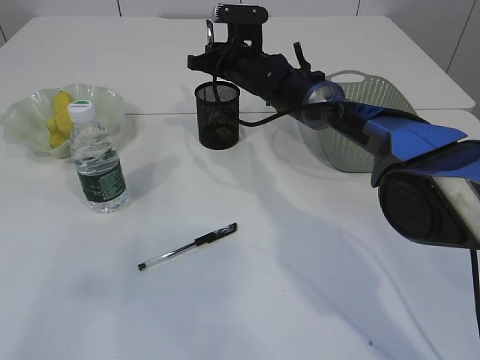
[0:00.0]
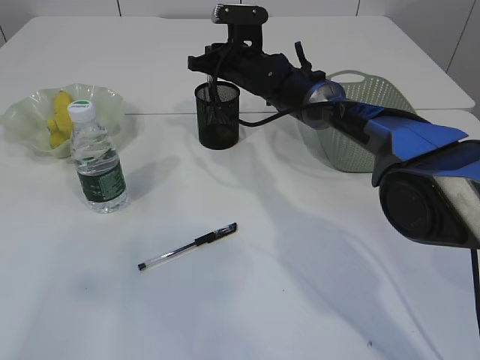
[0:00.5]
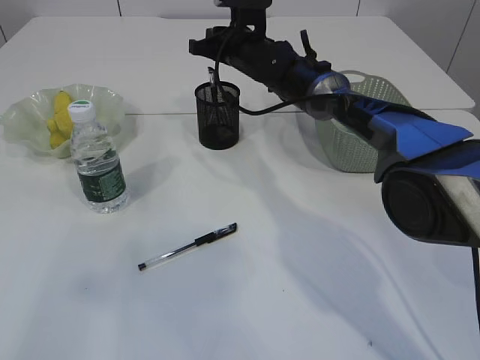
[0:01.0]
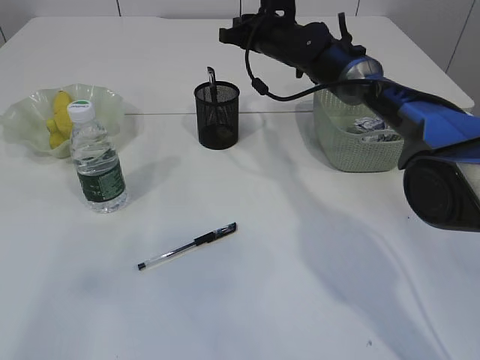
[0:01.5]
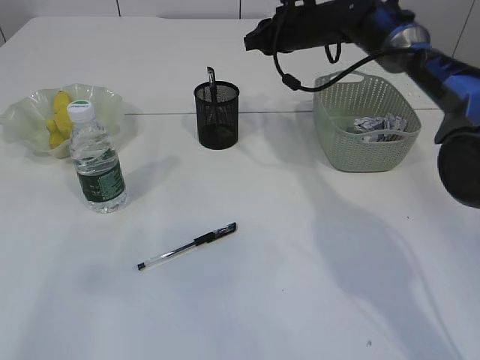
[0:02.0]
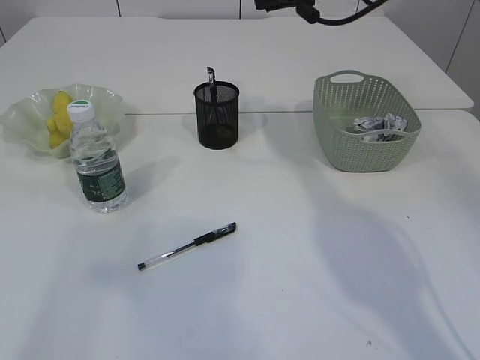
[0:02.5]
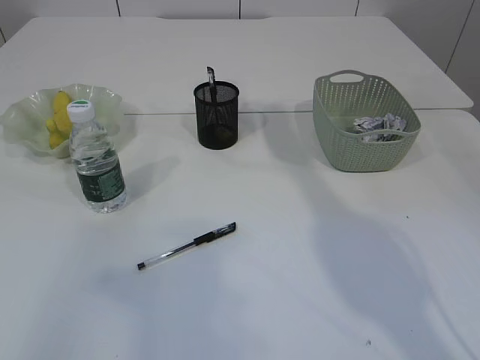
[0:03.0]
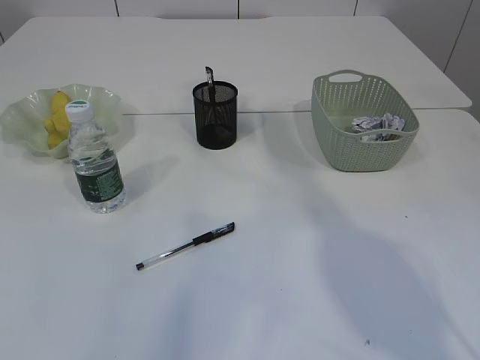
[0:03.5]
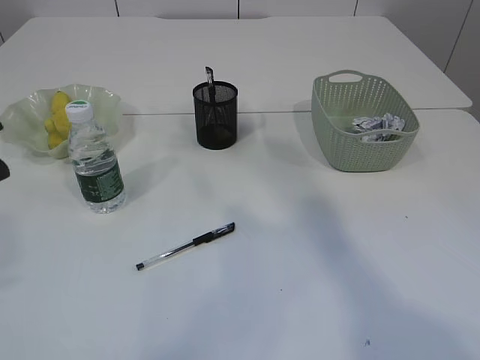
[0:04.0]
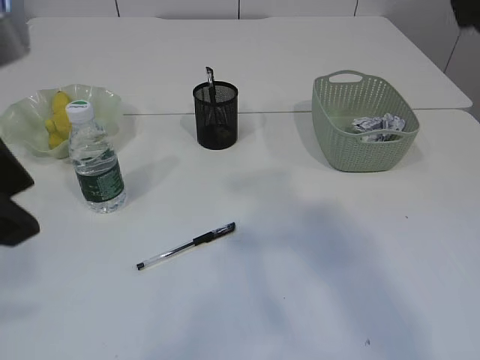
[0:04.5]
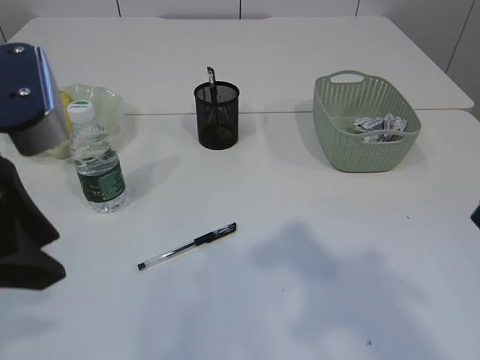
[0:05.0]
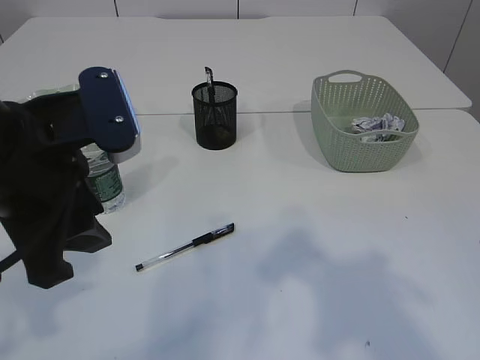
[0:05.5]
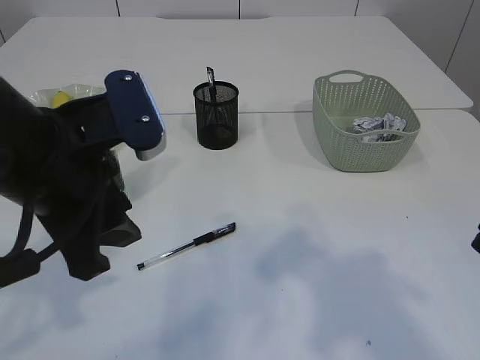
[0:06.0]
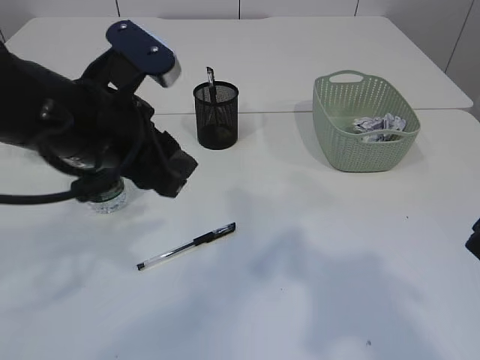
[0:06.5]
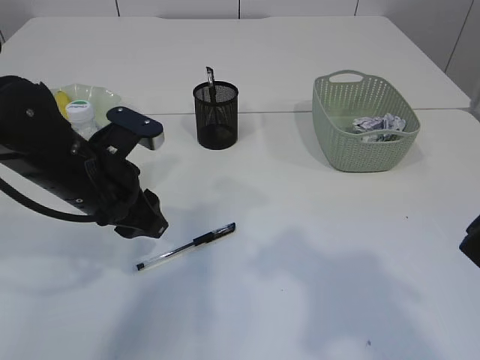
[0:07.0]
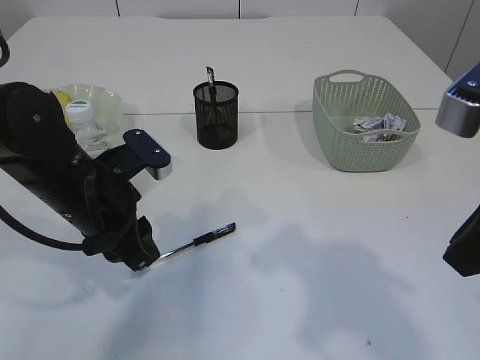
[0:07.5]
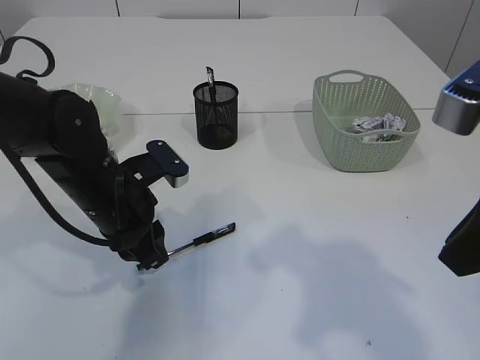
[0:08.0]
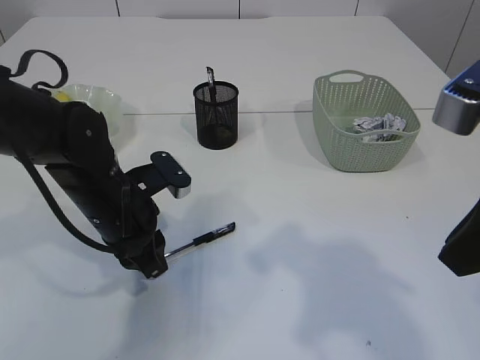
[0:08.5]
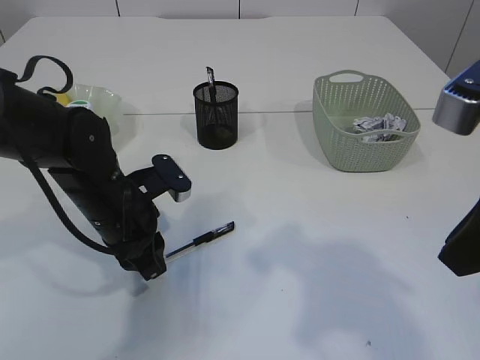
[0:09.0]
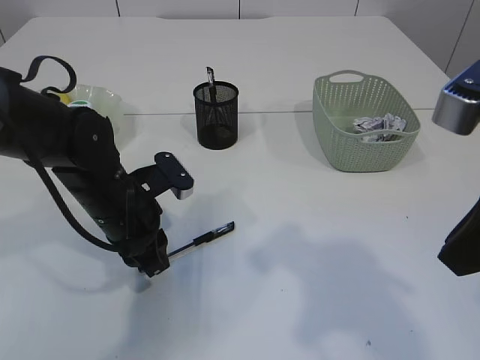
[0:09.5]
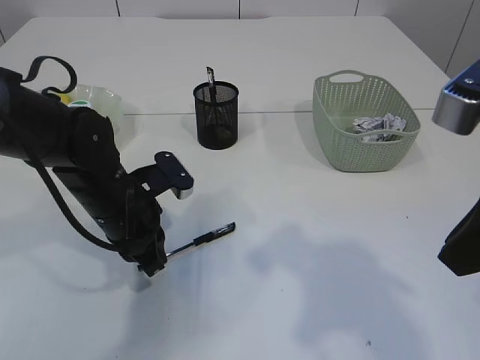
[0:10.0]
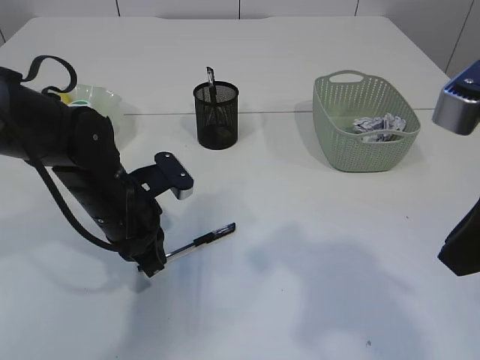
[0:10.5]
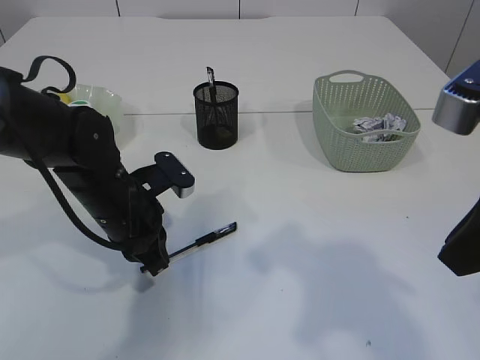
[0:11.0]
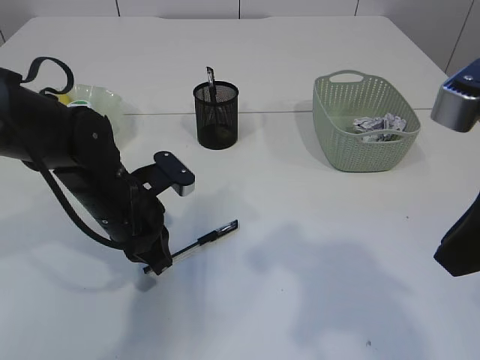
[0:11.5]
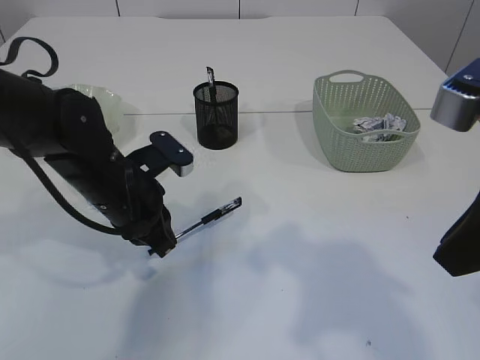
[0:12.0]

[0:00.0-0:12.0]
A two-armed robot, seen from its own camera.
0.0 to 2.0 s: The right gripper shifts some 10 cm to the right and upward.
2.0 to 4.0 s: The left gripper moves to the right and forward, approximately 15 cm, while the right gripper goes about 40 cm upward and backward.
4.0 to 6.0 s: The right gripper shifts about 25 cm downward and backward, while the left gripper is displaced downward and forward by approximately 15 cm.
6.0 to 8.0 s: The left gripper is displaced downward and forward by some 15 cm.
8.0 to 12.0 s: The grippers stay close to where they were, moving slightly.

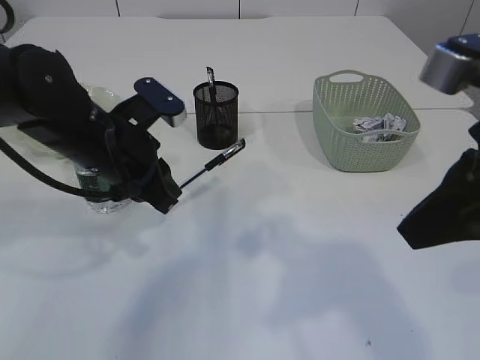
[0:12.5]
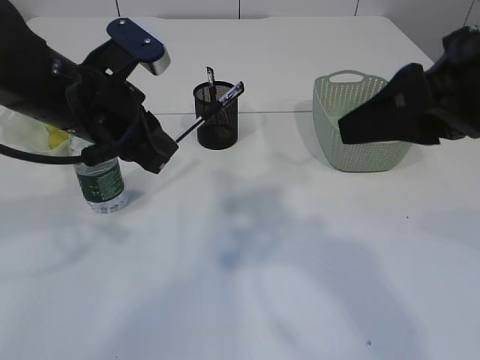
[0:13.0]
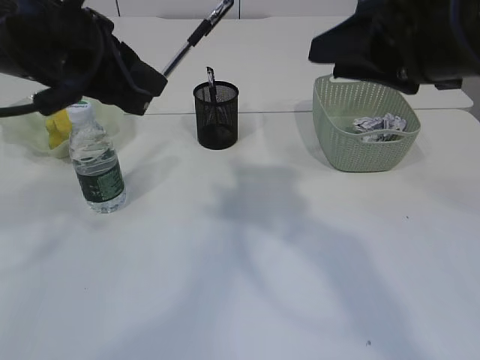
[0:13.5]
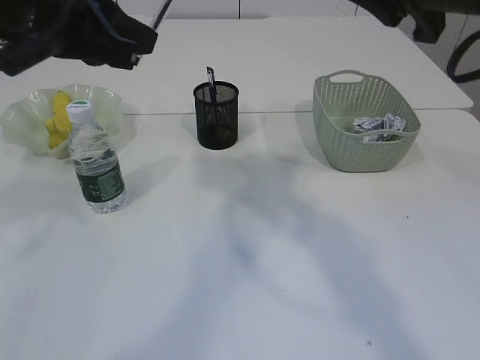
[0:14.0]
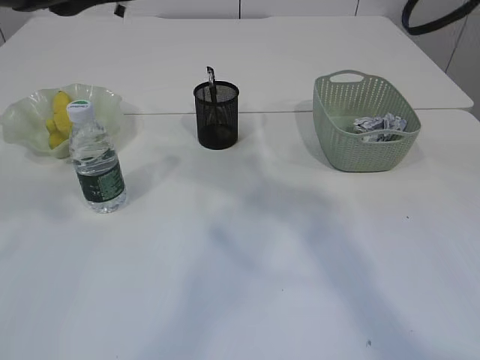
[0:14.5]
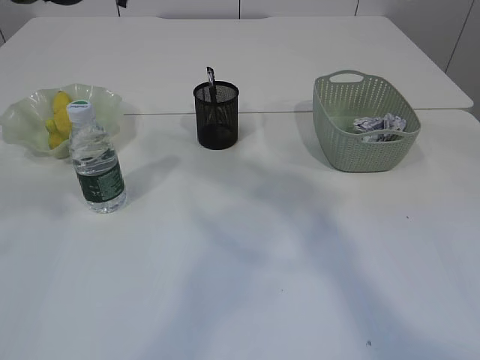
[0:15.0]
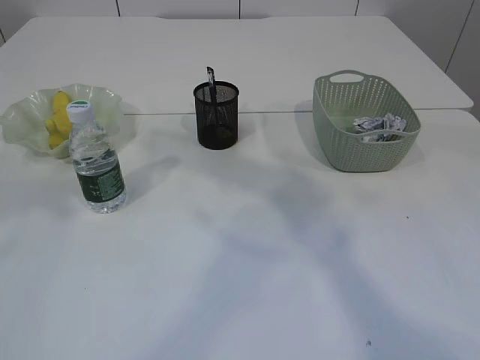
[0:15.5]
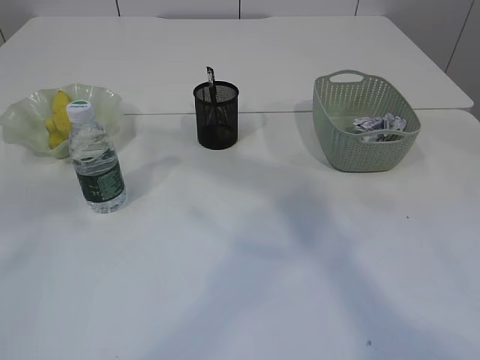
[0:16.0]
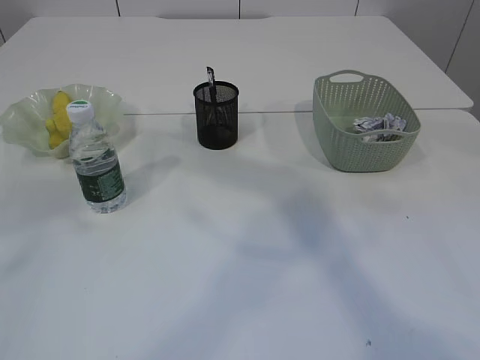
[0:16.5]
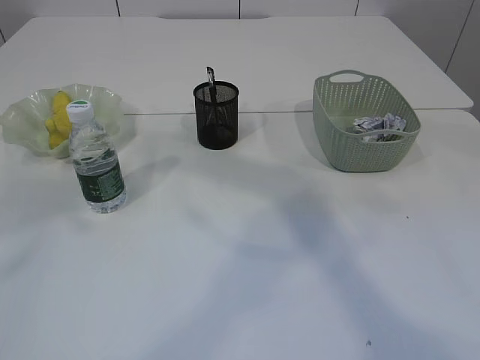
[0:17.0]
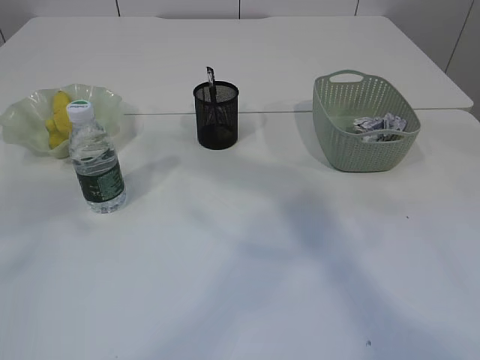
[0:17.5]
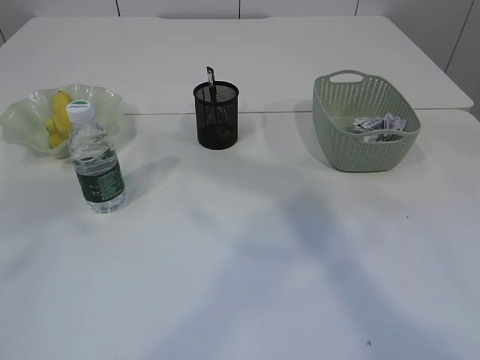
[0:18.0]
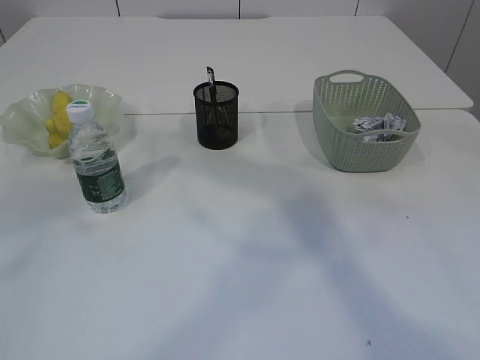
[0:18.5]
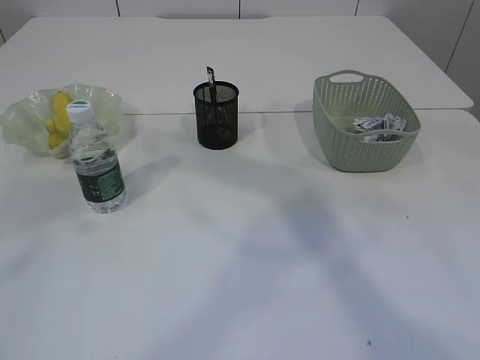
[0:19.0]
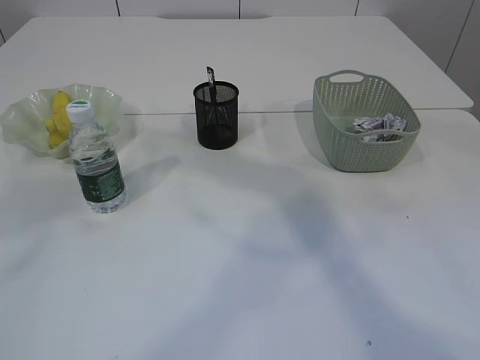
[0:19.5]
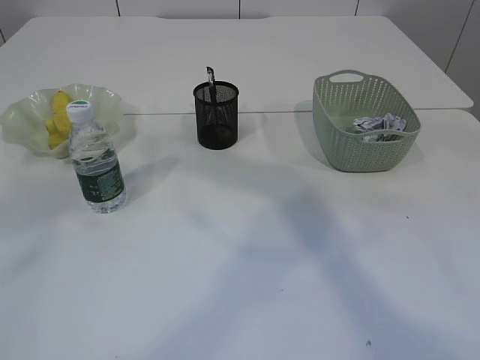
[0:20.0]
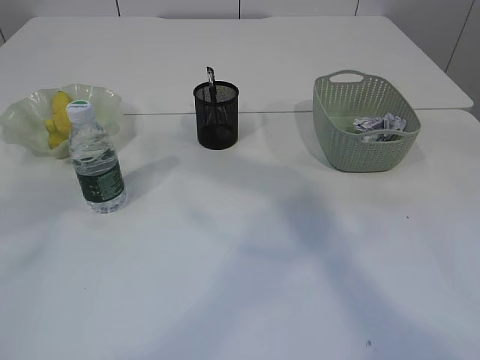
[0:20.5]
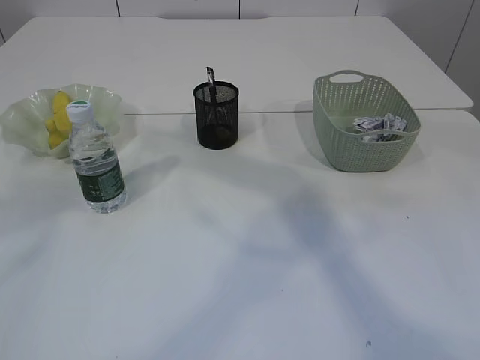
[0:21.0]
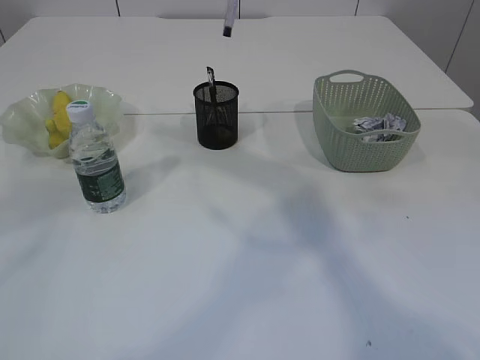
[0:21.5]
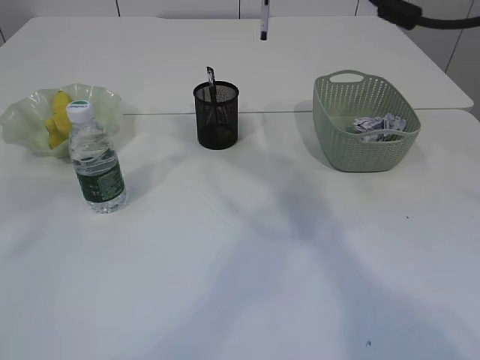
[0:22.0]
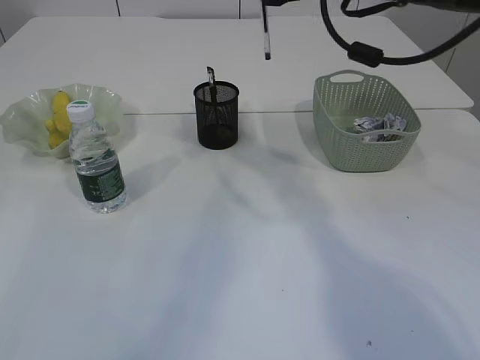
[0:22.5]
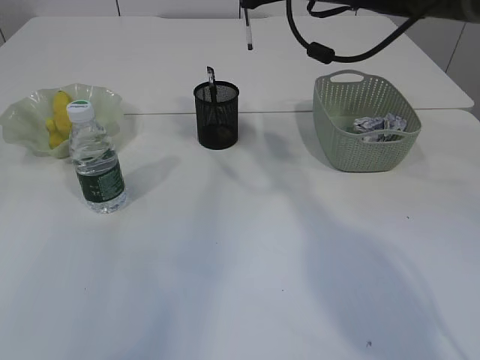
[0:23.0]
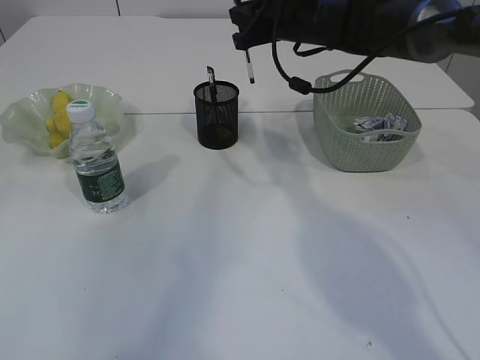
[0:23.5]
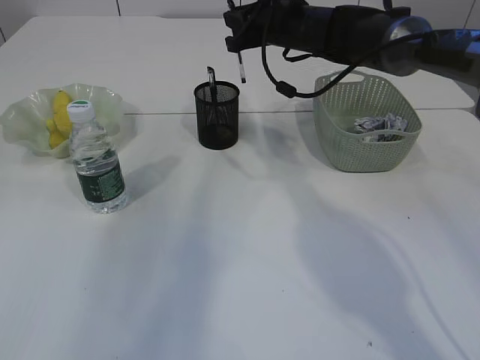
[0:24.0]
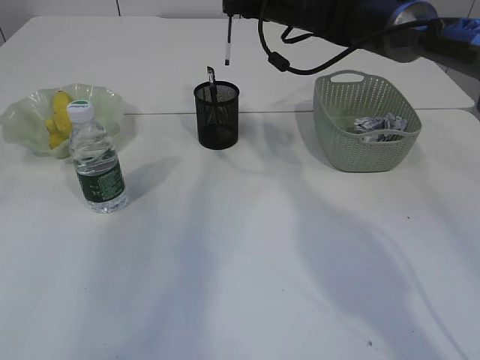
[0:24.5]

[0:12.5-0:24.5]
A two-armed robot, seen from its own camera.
Step, 12.5 to 21.5 s: transfer the pen to the right arm.
12.5 to 14.5 s: The left gripper heads upward, covering approximately 20 cm. Meanwhile the right gripper shifts roughly 15 cm forward and upward.
14.5 to 16.5 s: The left gripper shifts by some 5 cm. The right gripper goes some 5 cm upward.
18.5 to 20.5 s: Neither gripper changes place.
20.5 to 22.5 s: The right gripper goes approximately 15 cm forward and downward. The left gripper travels to the left and forward by about 10 cm.
22.5 to 24.5 s: The right gripper travels forward and downward by roughly 15 cm.

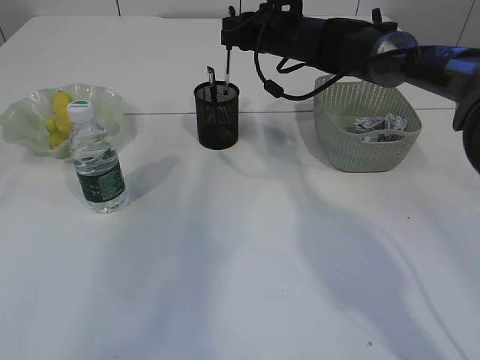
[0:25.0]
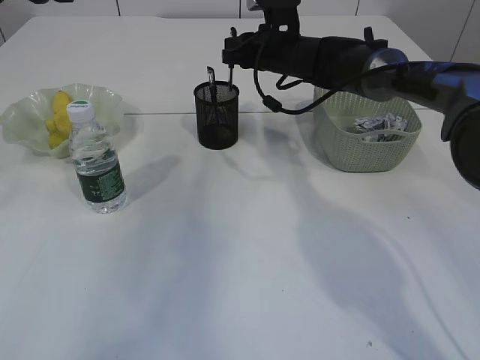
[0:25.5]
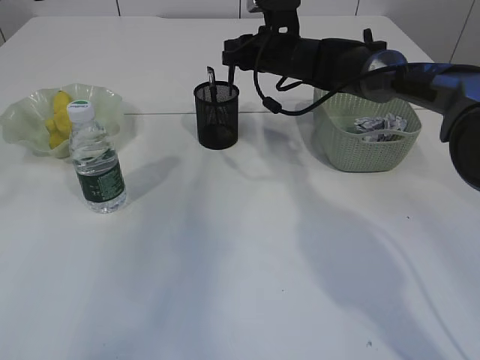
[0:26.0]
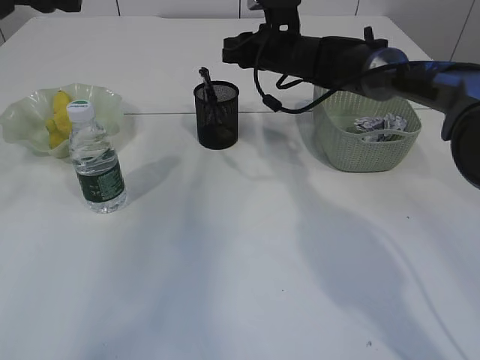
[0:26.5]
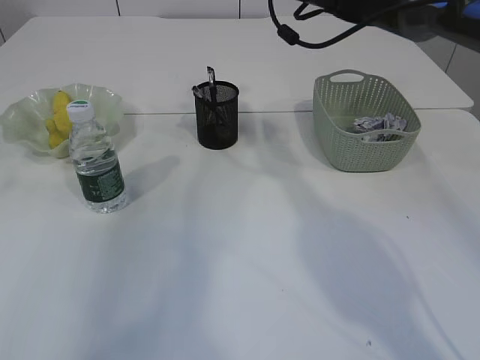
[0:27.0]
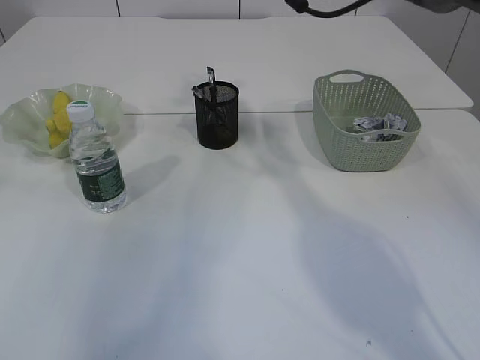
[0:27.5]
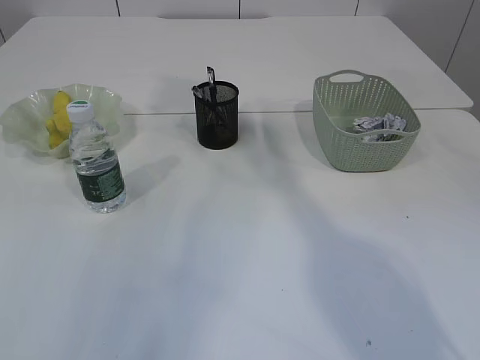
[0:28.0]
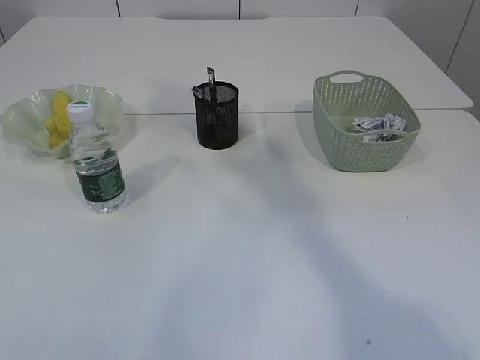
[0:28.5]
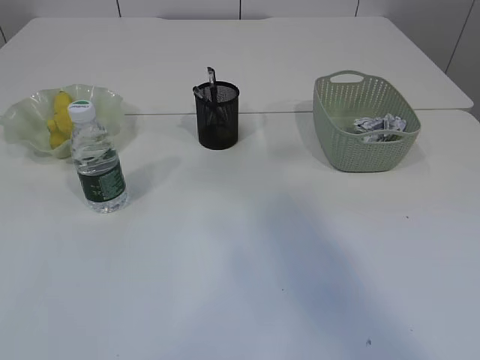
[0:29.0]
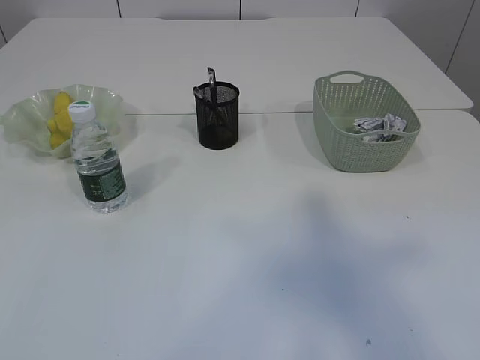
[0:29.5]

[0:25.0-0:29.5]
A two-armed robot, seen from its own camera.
25.0 to 27.0 s: The right gripper goes about 5 cm upward.
27.0 to 29.5 s: The left gripper heads backward and upward, covering about 35 cm; the right gripper shifts roughly 60 cm backward and upward.
